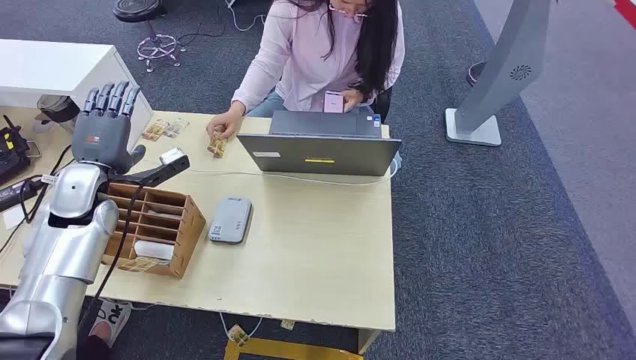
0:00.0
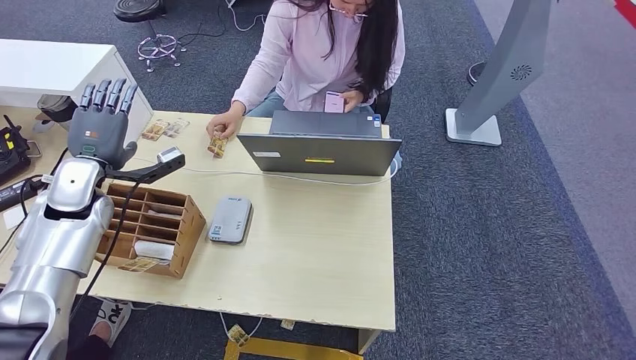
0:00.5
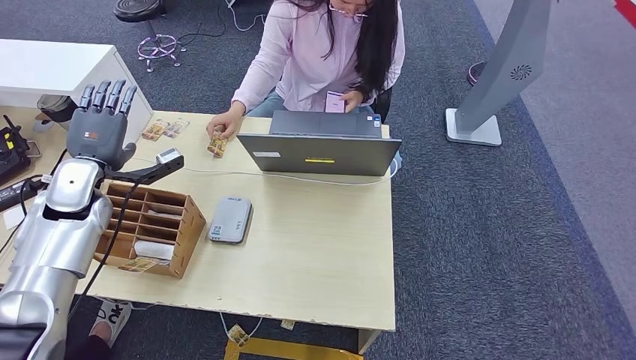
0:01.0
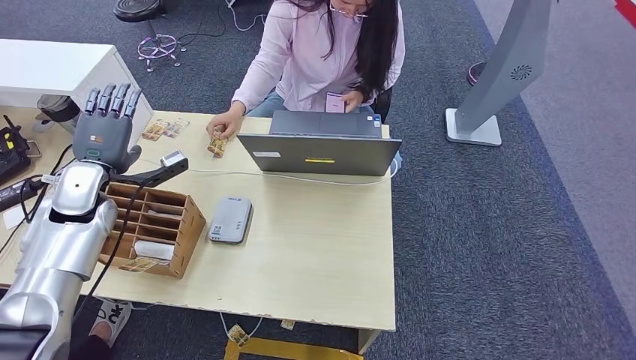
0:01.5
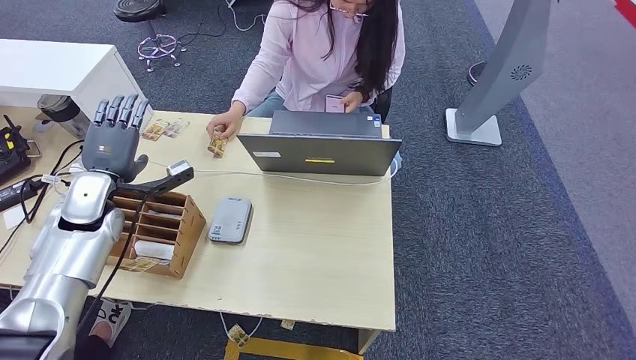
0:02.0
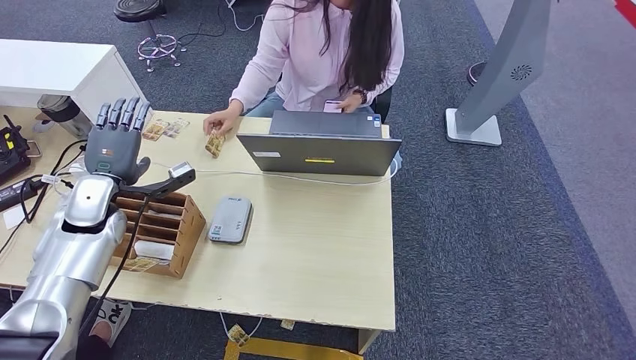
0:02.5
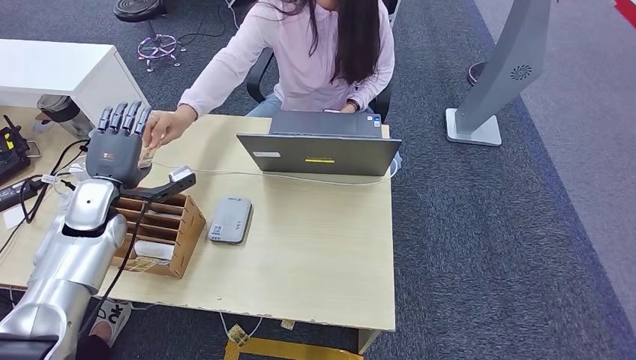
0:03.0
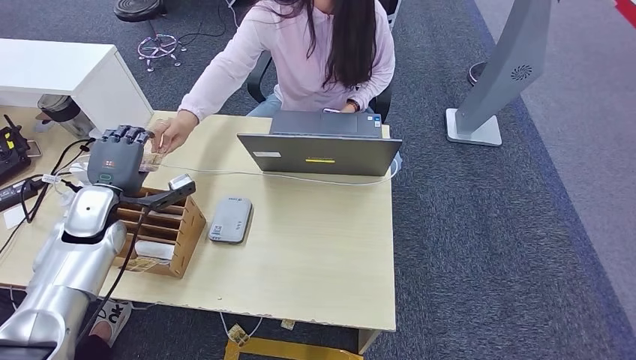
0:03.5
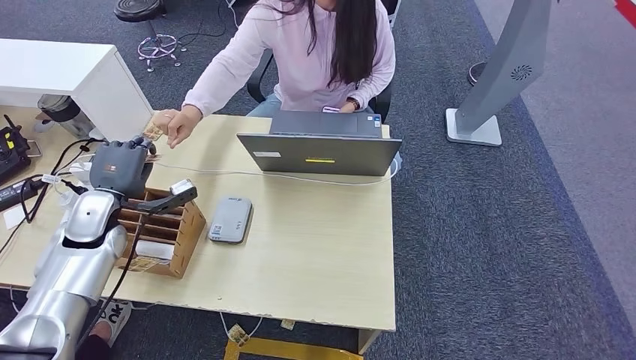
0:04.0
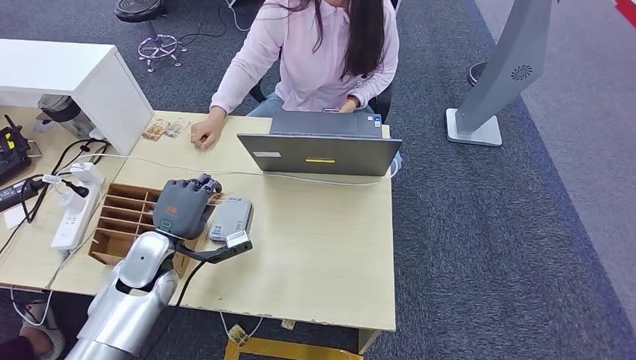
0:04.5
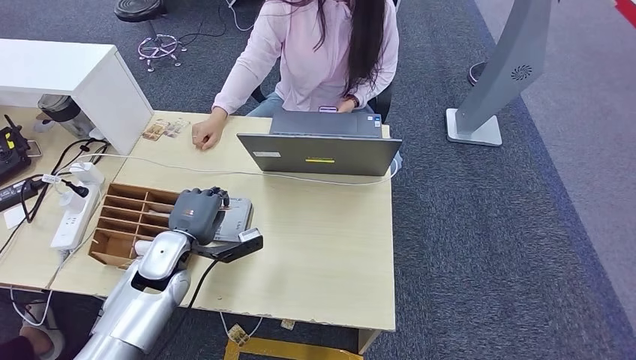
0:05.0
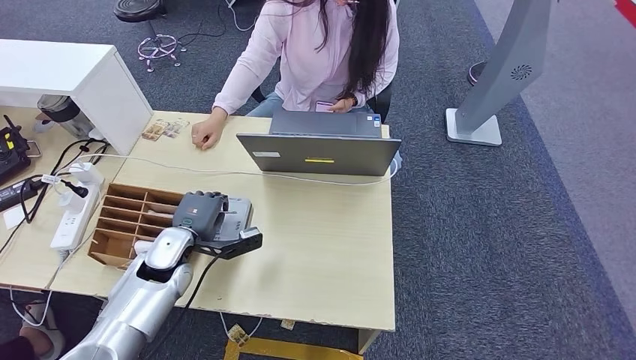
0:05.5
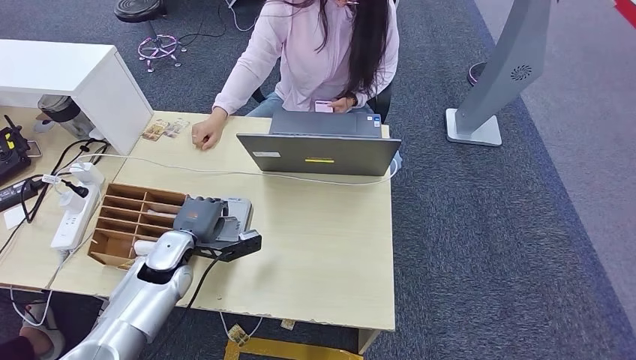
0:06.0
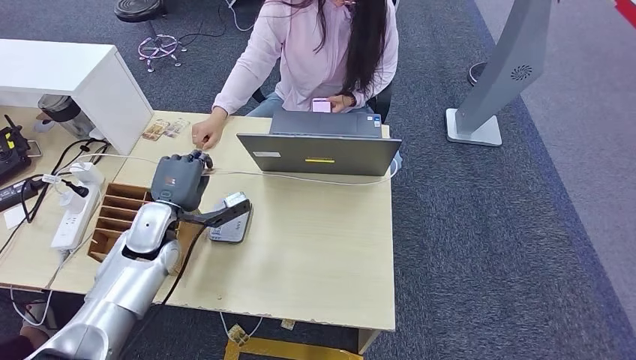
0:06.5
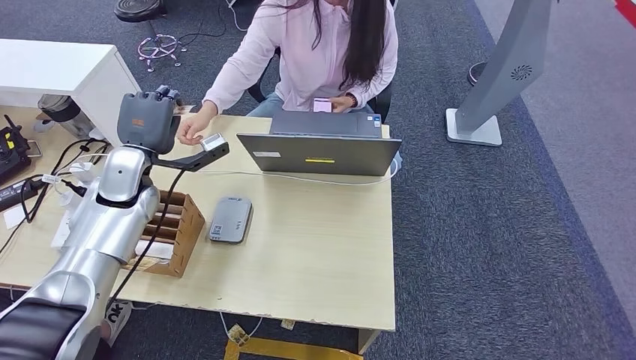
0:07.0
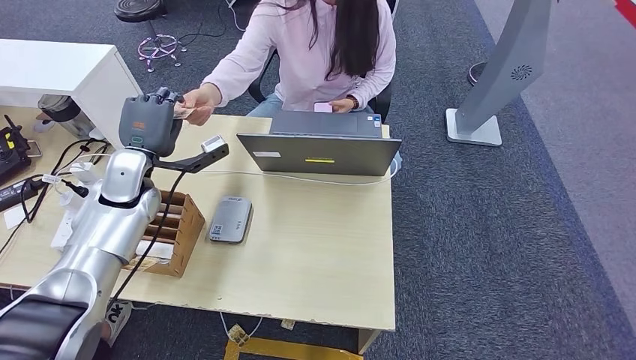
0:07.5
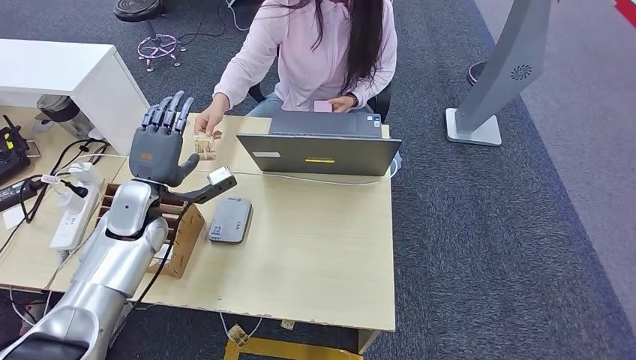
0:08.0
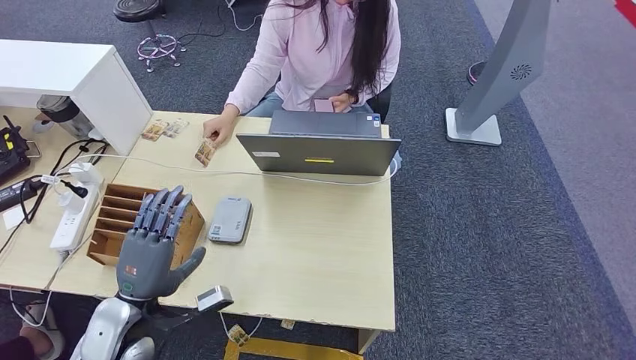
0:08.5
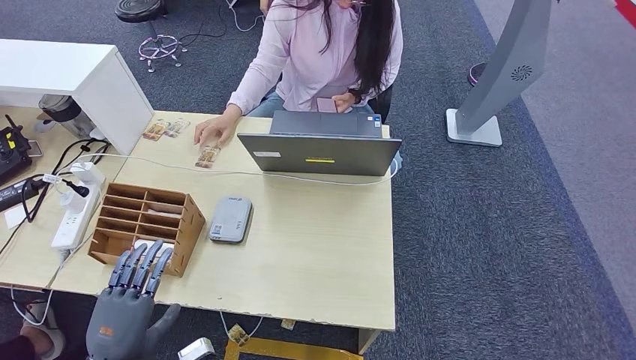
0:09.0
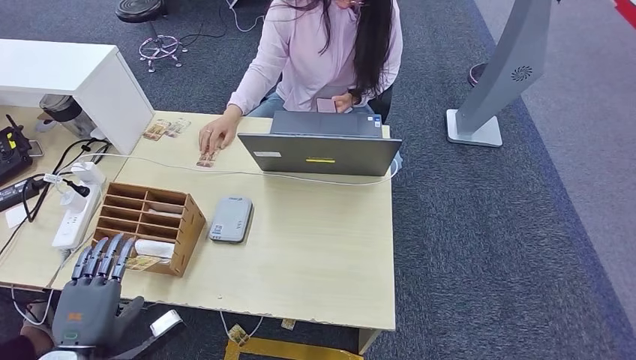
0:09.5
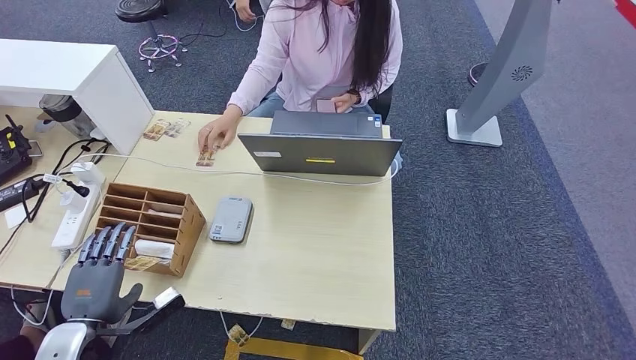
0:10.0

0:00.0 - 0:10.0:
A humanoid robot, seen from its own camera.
Step, 0:00.0 - 0:04.0: Take the ID card from the person's hand.
Step, 0:04.5 - 0:05.5: Place the ID card on the card reader.
Step, 0:06.5 - 0:08.0: Hand the ID card to the person.
0:02.0 - 0:04.0: There are only small adjustments of the hands.
0:04.0 - 0:06.0: The left hand moves to the right and downward, approximately 15 cm.
0:06.0 - 0:08.0: The left hand goes roughly 10 cm upward.
0:08.0 - 0:10.0: The left hand is displaced backward by approximately 25 cm.

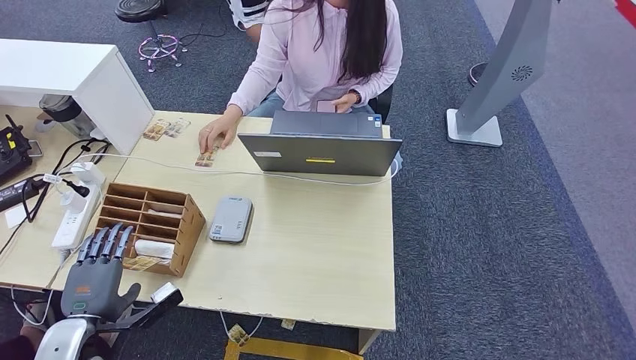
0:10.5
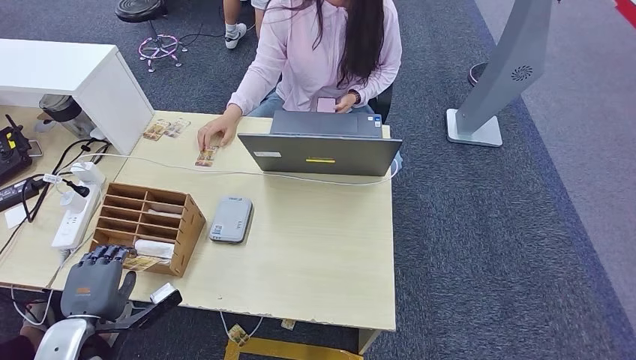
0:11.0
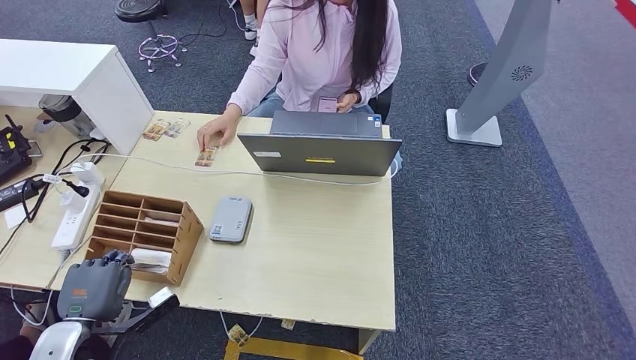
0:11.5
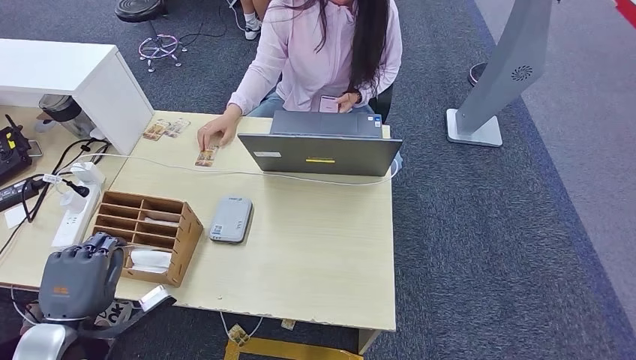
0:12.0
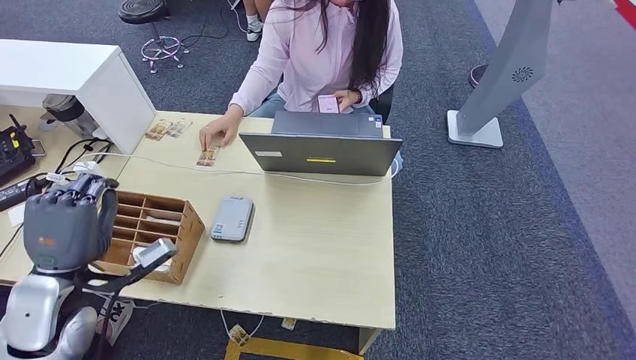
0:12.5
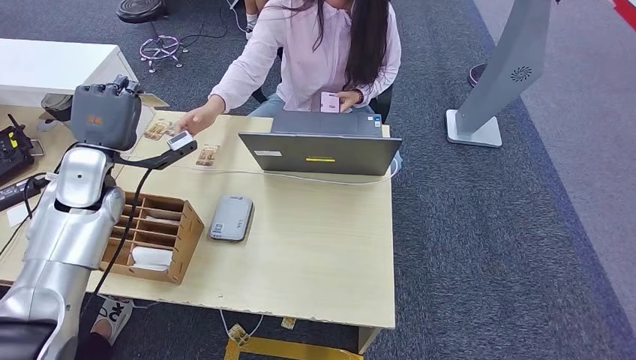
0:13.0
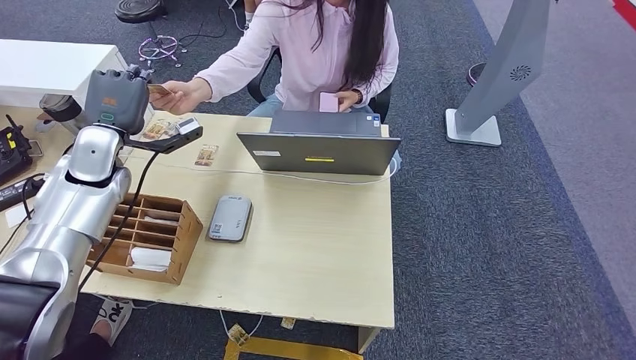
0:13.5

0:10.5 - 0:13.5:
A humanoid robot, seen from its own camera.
Step, 0:10.5 - 0:12.0: Pick up the room key from the key card box.
Step, 0:13.0 - 0:13.5: Hand the room key to the person.
0:10.5 - 0:12.0: There are only small adjustments of the hands.
0:12.0 - 0:13.5: The left hand moves forward and upward, some 30 cm.
